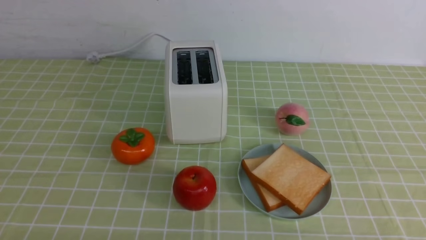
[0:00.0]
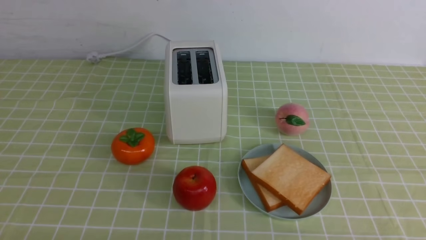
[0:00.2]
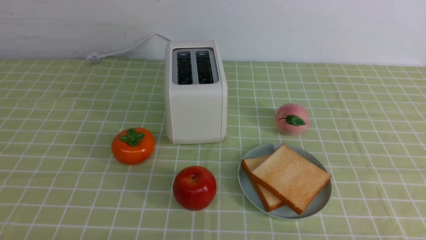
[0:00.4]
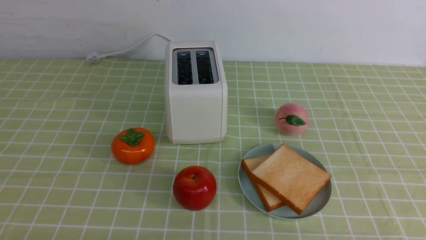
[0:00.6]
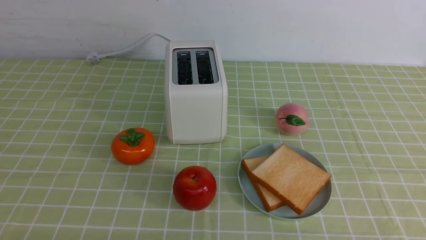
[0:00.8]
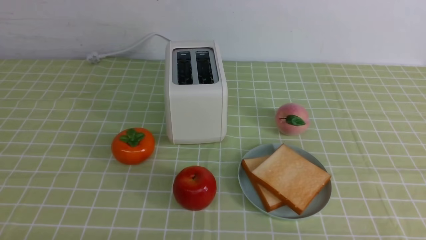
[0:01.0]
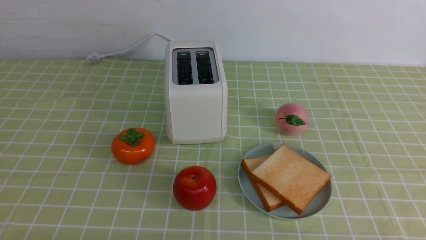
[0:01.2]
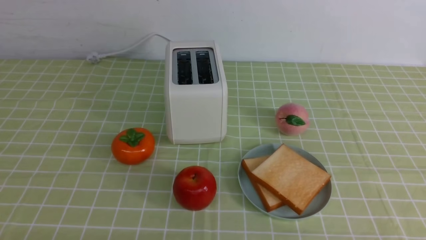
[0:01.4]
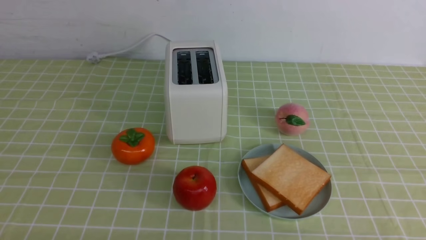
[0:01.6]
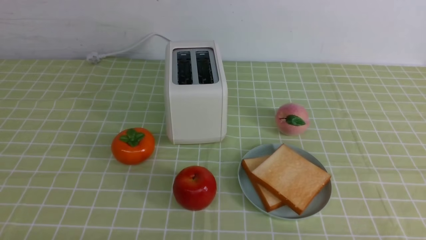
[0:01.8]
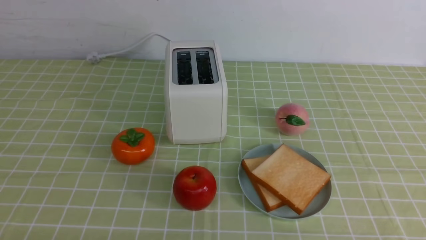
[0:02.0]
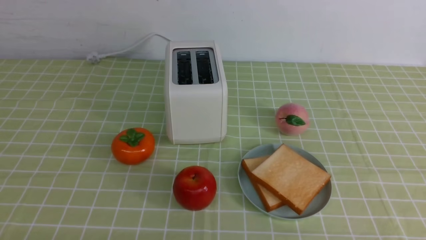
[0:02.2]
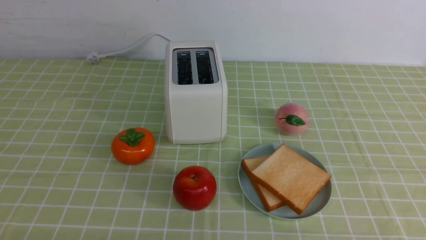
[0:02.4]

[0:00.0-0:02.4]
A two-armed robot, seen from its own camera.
Task of the whole recording: take toasted bread from bread machine on green coffee tablecloth place on plate.
0:00.0 to 0:02.4: The two grippers keep their place.

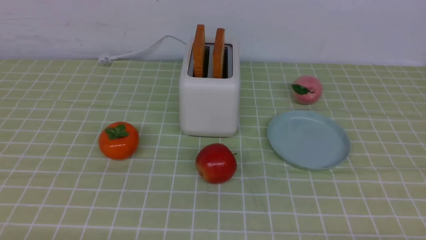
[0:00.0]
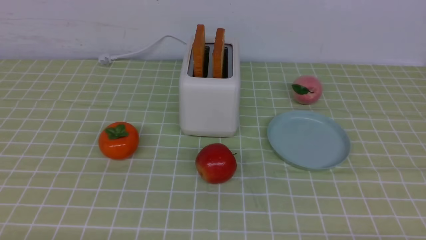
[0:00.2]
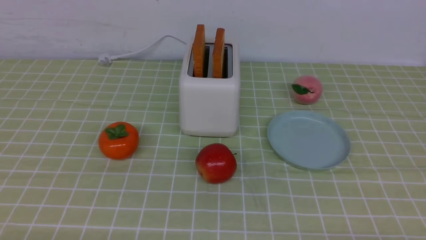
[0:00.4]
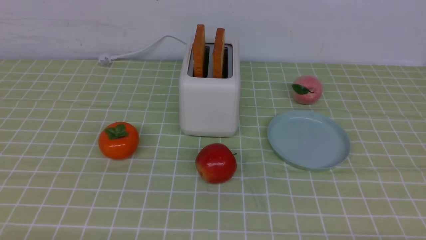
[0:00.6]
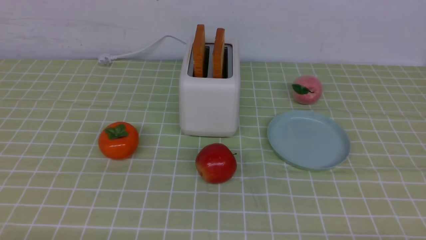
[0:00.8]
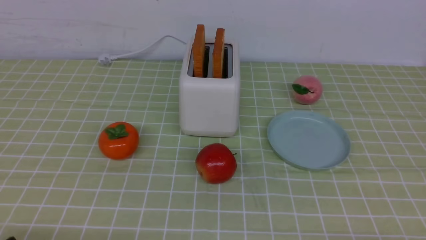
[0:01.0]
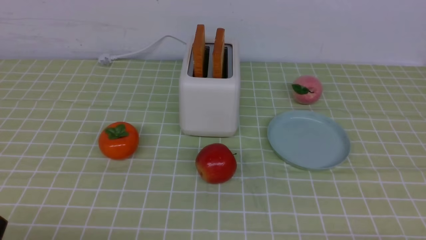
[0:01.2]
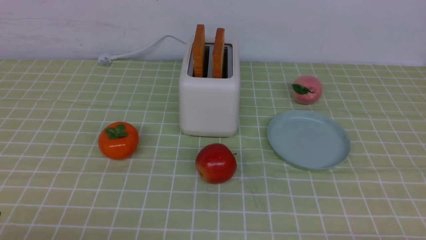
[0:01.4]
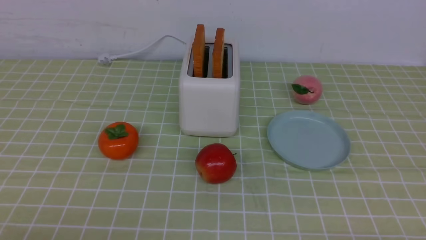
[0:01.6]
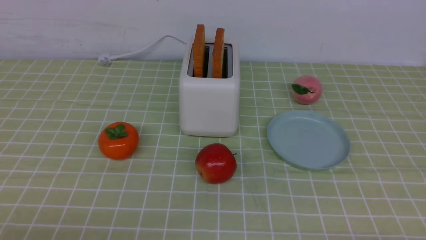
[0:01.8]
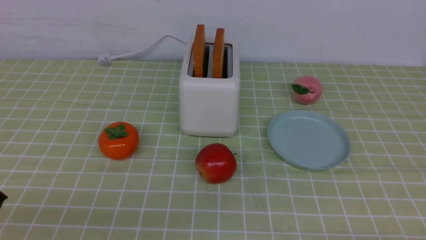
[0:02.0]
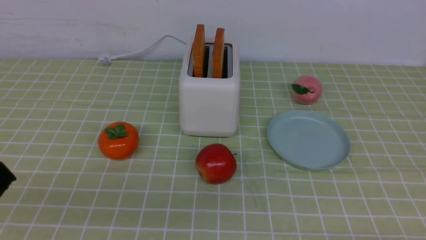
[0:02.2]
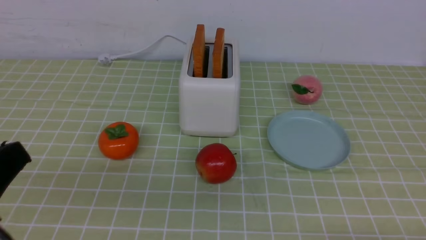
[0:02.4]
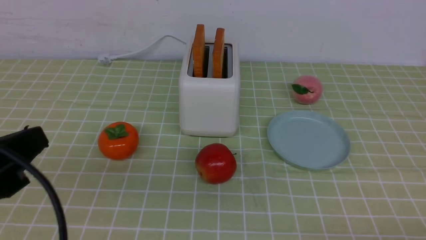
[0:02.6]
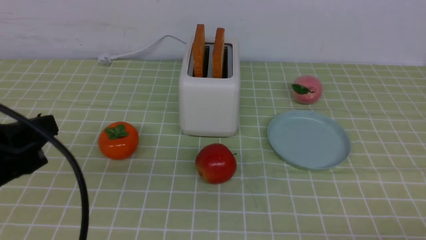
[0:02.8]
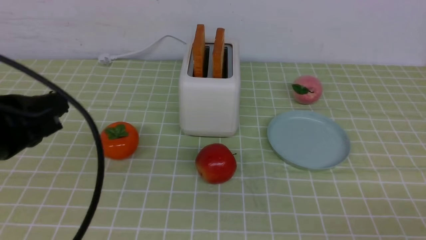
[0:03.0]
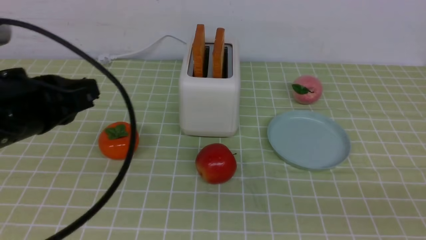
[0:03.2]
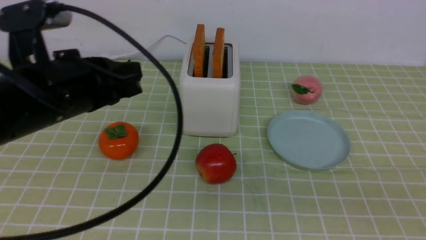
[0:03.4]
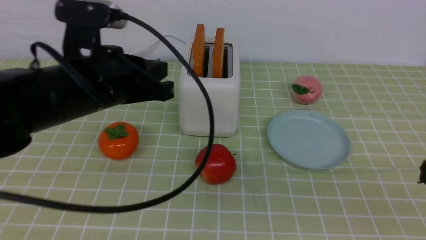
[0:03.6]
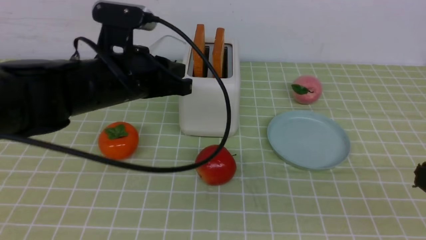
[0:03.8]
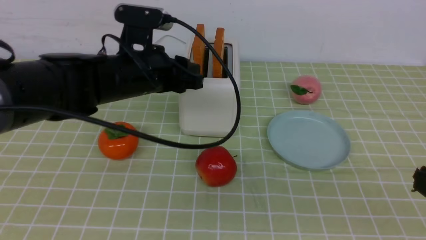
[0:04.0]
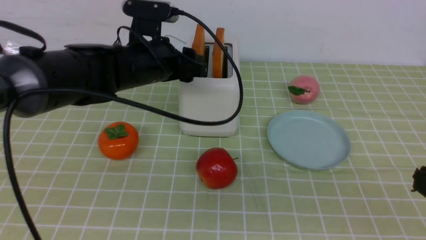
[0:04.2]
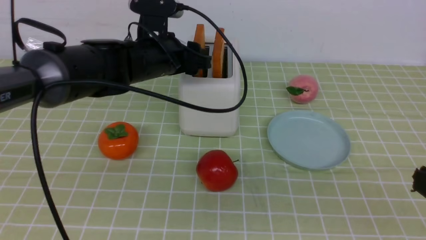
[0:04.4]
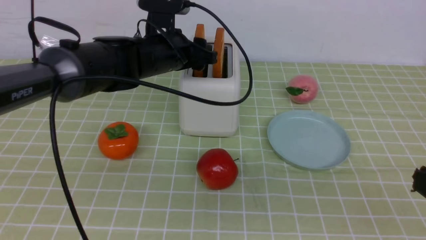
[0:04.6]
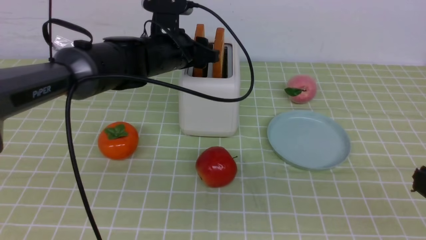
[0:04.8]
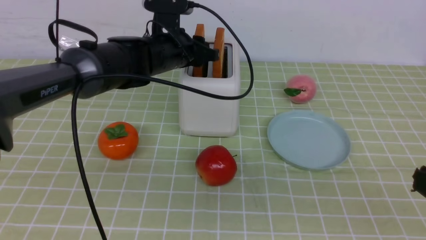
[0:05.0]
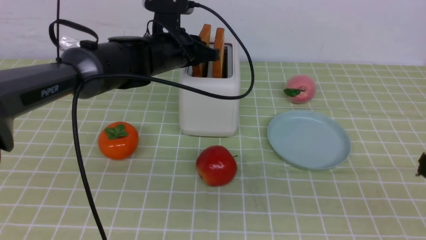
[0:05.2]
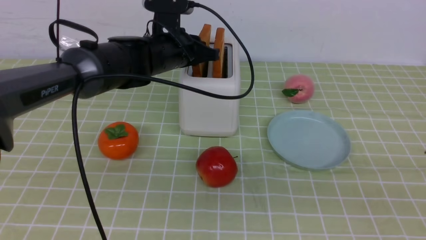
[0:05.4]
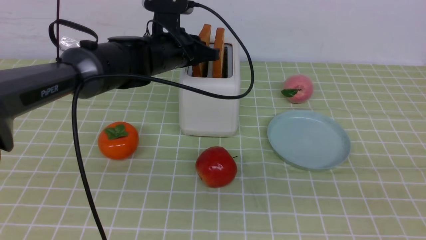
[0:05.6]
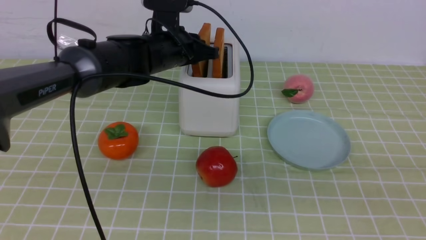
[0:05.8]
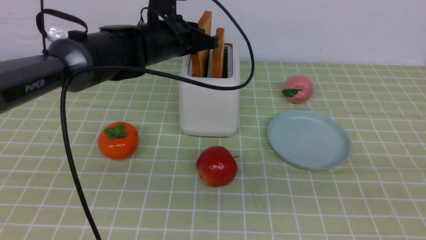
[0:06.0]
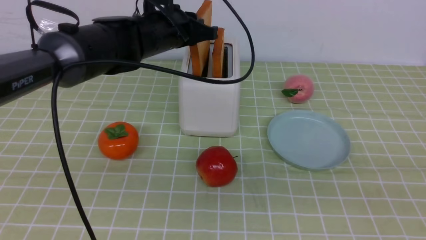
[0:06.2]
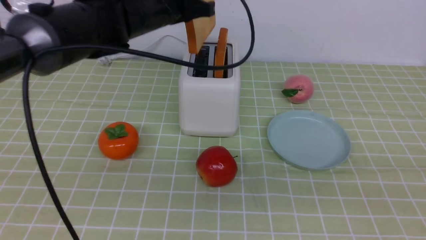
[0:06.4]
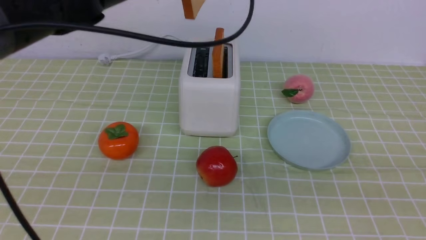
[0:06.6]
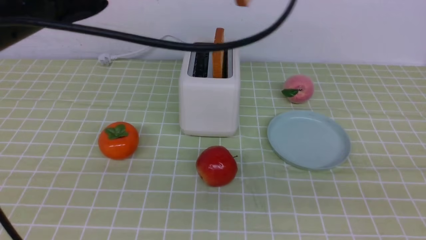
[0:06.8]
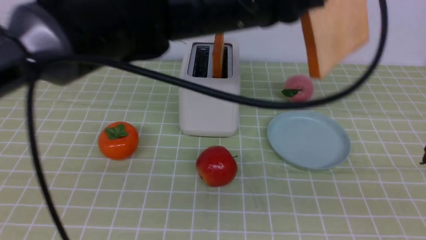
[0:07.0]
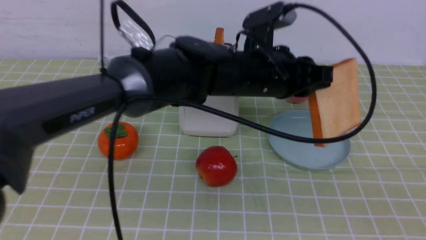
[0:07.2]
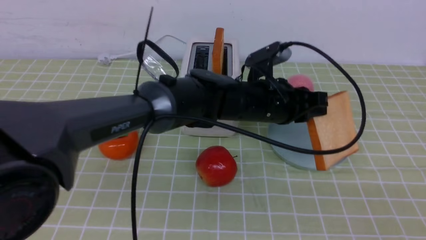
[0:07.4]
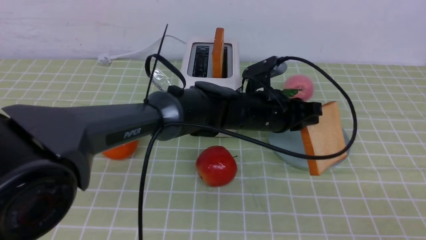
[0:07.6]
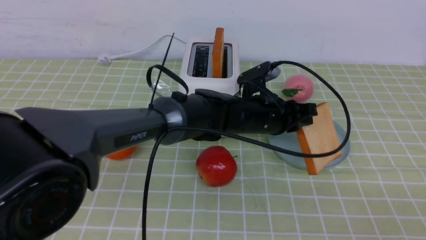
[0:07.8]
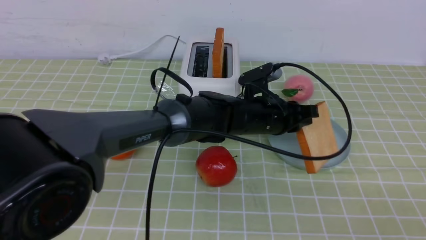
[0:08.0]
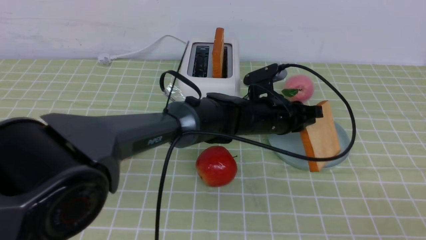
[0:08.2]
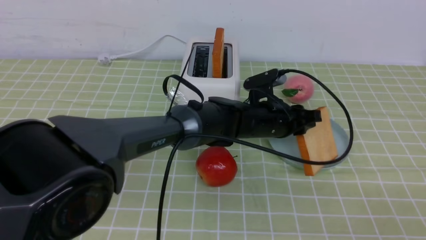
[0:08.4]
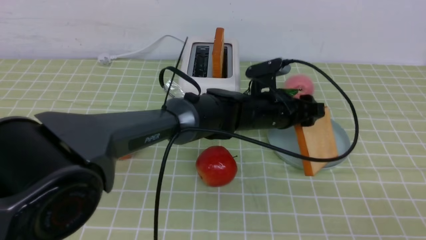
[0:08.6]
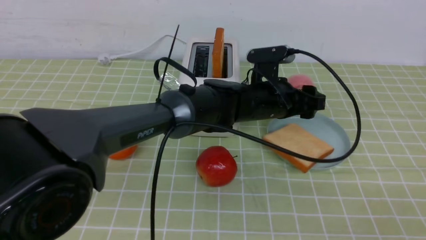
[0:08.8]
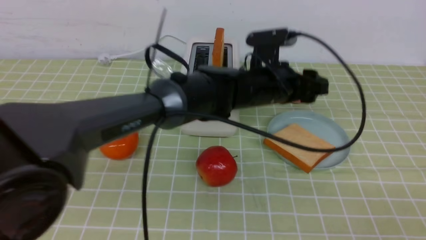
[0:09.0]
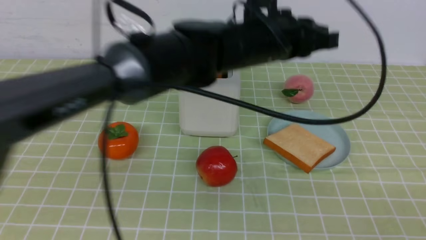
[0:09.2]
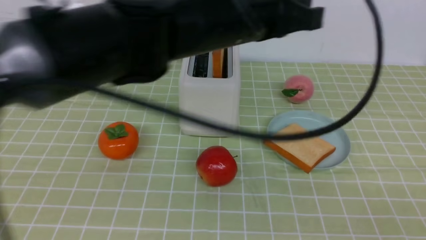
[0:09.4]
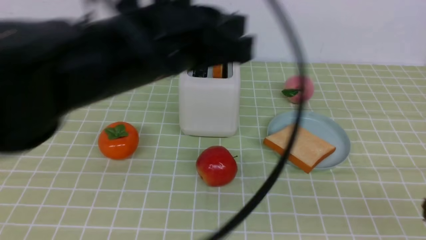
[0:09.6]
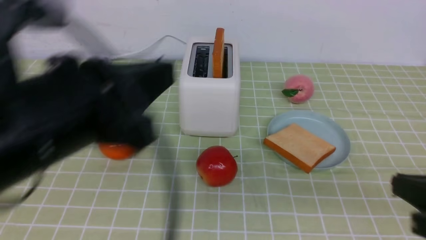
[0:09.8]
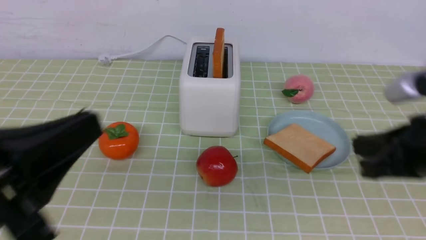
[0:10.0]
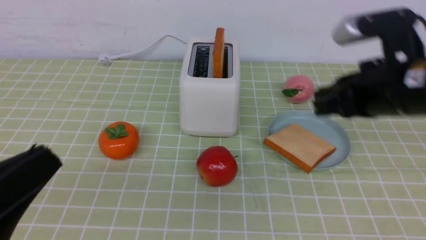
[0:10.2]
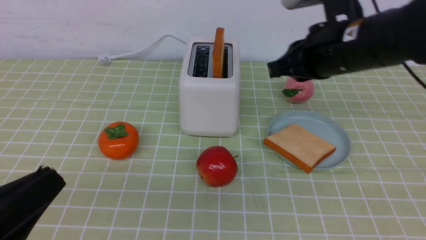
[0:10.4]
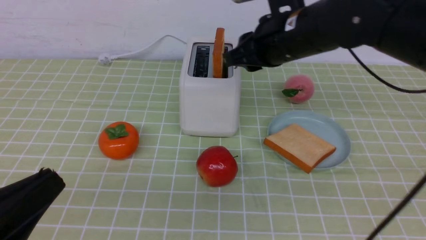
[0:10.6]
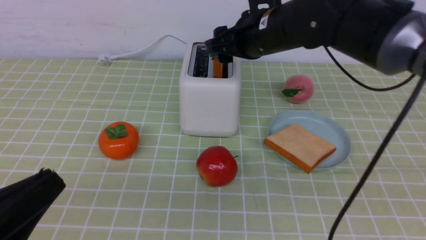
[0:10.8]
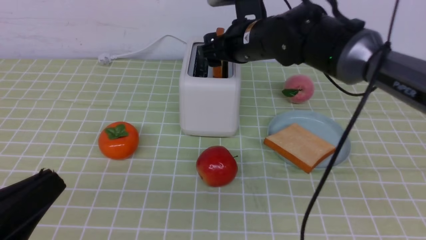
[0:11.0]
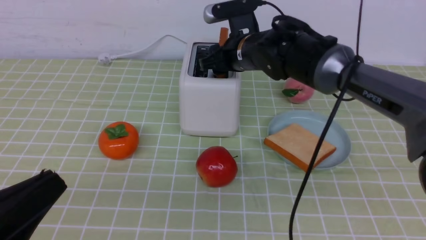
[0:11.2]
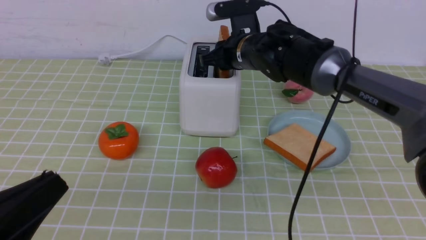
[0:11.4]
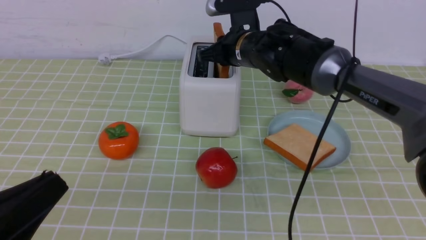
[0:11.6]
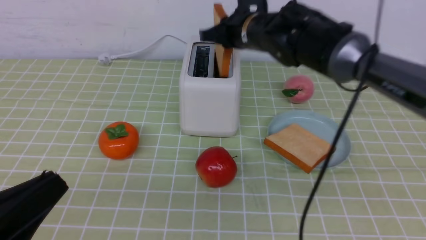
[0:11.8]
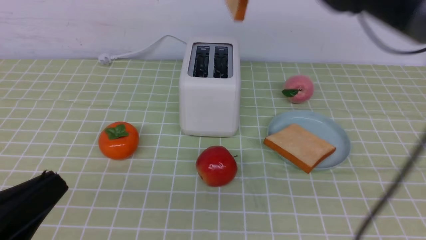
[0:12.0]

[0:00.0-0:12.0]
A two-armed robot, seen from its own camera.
Task of the whole recording: take toasted bread from bread machine on green coffee tablecloth place on plate.
Step, 0:00.0 to 0:06.2: use the left arm to take out a slice of bread.
Step, 0:06.4 to 0:08.8: use the left arm to put a slice of bread into the empty plate.
Step, 0:09.0 to 0:11.8: use the right arm to take out a slice of bread.
0:01.6 to 0:03.0: The left gripper is displaced forward and upward by about 15 cm.
0:03.0 to 0:04.4: The left gripper shifts roughly 25 cm forward and to the right, and opens up. The right gripper heads upward, covering approximately 5 cm, and closes.
0:04.4 to 0:06.0: The left gripper closes up.
0:06.0 to 0:07.6: The right gripper shifts by some 5 cm. The left gripper moves to the right, downward and backward, approximately 20 cm.
0:07.6 to 0:09.0: The left gripper goes approximately 5 cm upward, and opens its fingers.
0:09.0 to 0:10.4: The left gripper goes roughly 40 cm backward and to the left, and closes. Meanwhile the right gripper moves forward and to the left, roughly 30 cm.
0:10.4 to 0:12.0: The right gripper moves upward and forward, roughly 10 cm, and opens, then closes again.

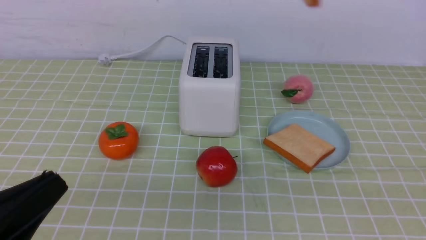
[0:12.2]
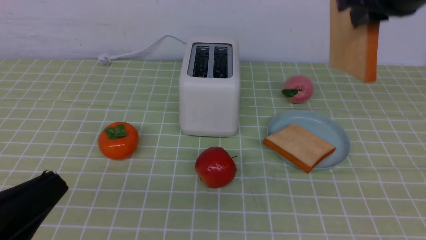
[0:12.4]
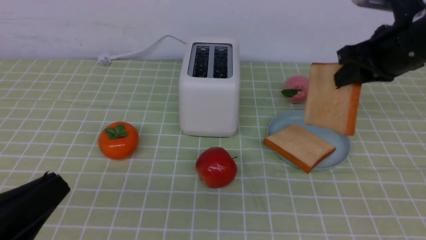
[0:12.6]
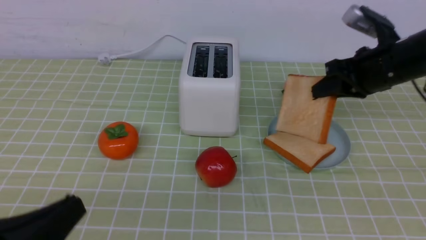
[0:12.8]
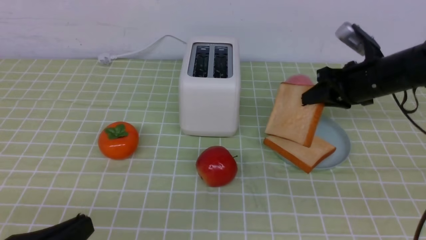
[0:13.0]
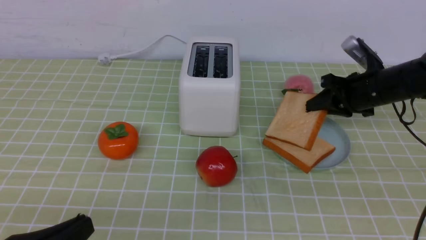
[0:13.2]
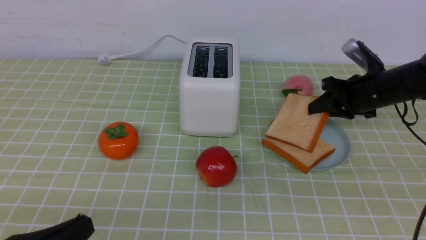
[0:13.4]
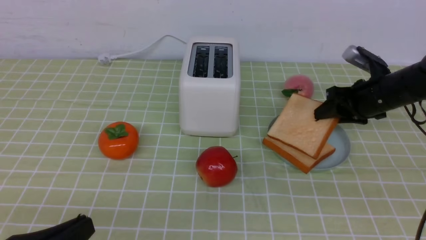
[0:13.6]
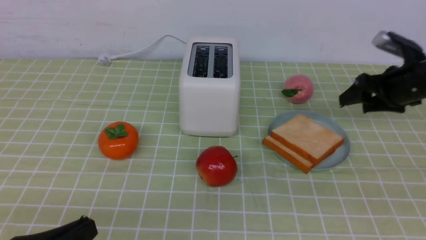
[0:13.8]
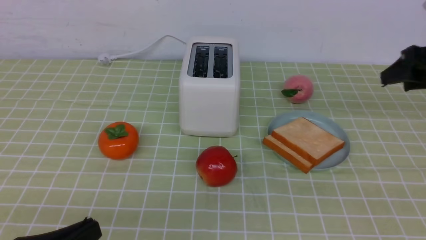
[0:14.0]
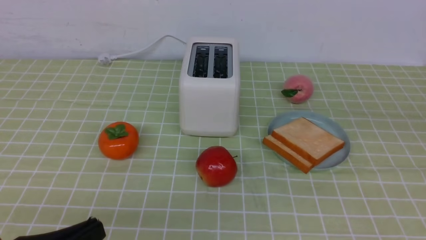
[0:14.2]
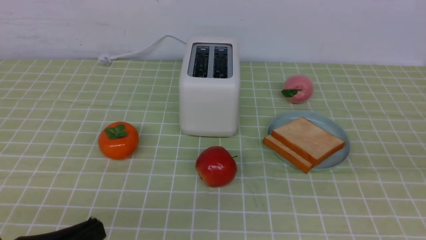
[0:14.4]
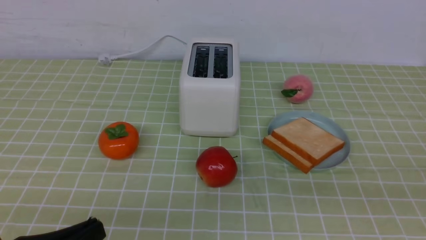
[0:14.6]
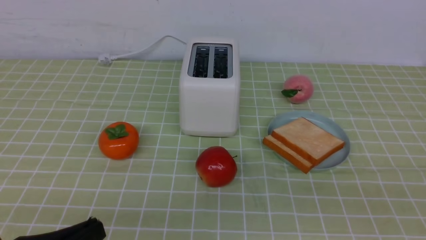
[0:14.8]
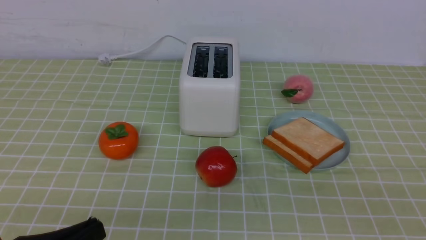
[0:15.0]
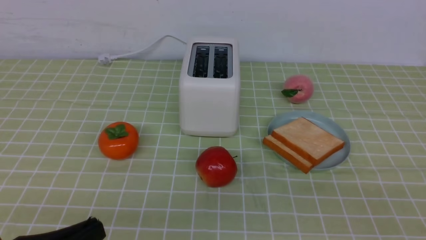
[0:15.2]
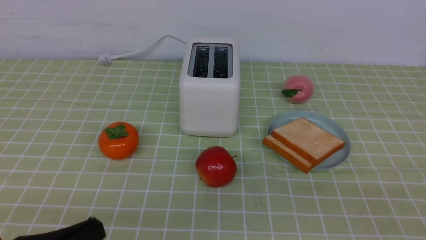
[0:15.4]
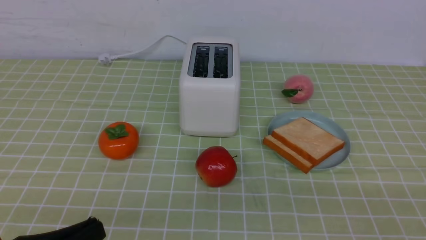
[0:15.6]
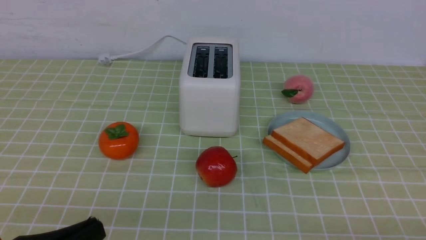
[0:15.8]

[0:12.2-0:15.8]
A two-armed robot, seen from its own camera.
Task of the whole recording: take toasted bread from bread machine on green coffee tablecloth place on plate.
Step, 0:12.2 to 0:13.8: use the right arm to put a slice of bread into the plate.
0:12.2 to 0:14.0: The right gripper heads to the right and downward, covering approximately 20 cm, and opens. The left gripper moves approximately 5 cm.
0:14.0 to 0:15.8: The right gripper heads backward and downward, covering some 30 cm, and closes its fingers.
